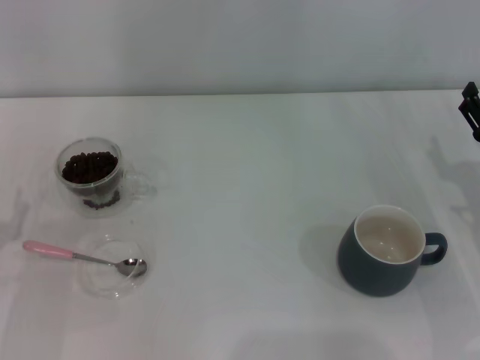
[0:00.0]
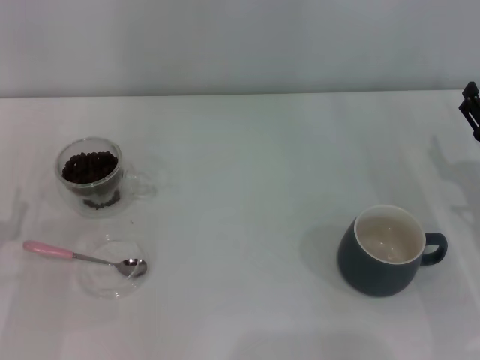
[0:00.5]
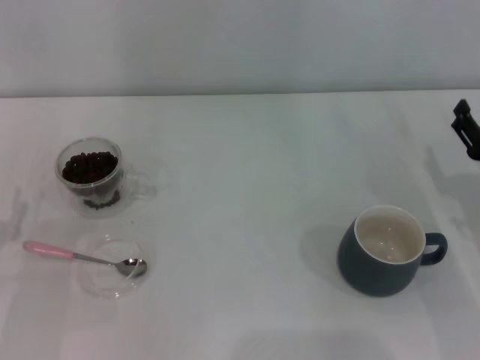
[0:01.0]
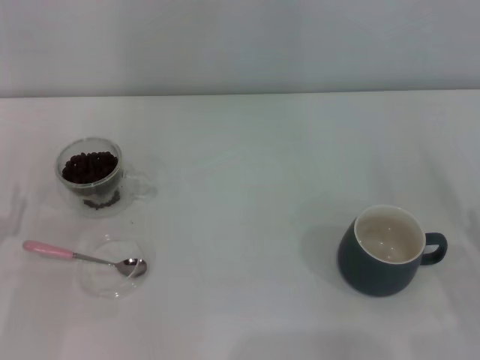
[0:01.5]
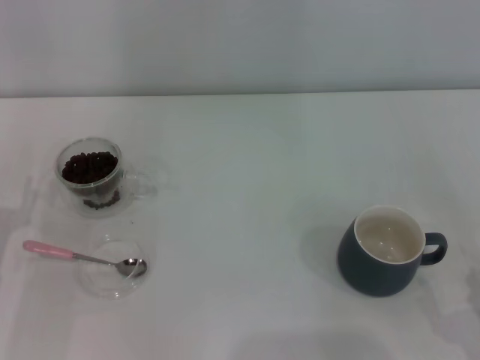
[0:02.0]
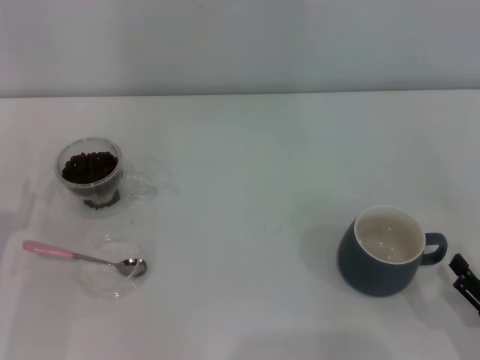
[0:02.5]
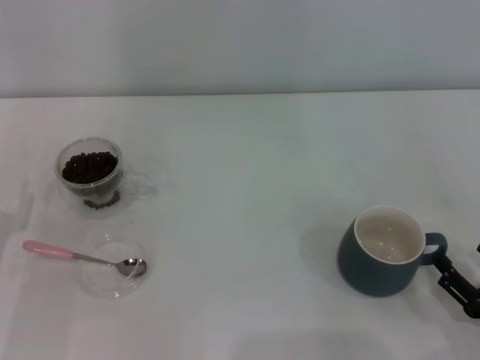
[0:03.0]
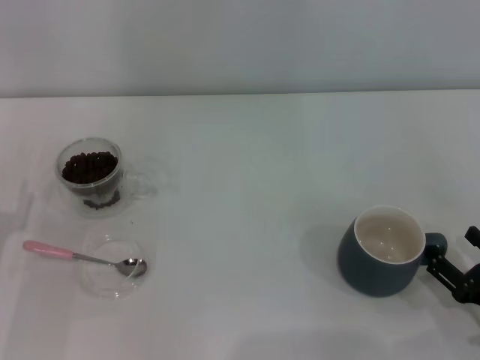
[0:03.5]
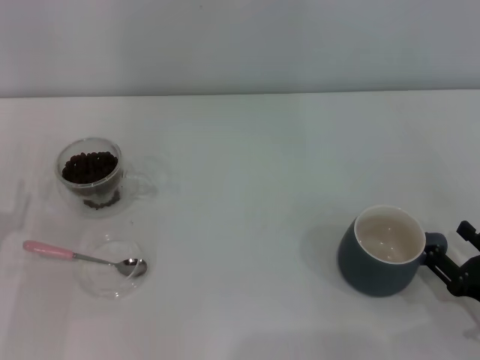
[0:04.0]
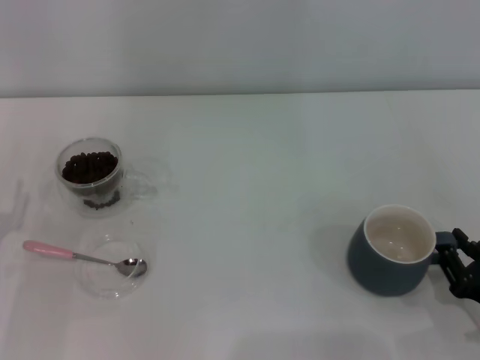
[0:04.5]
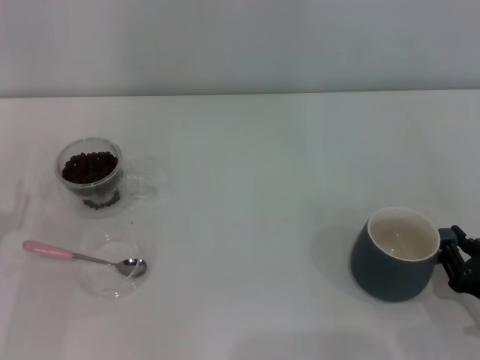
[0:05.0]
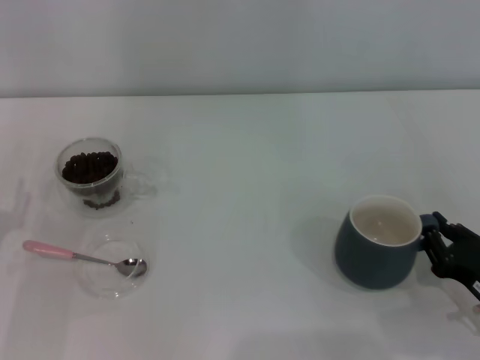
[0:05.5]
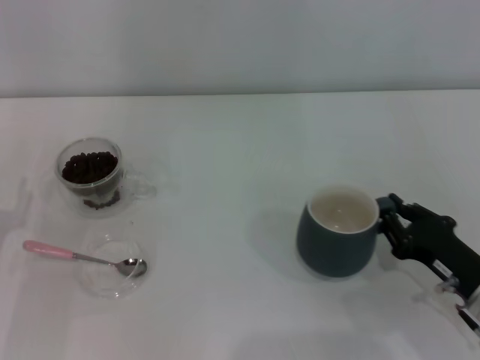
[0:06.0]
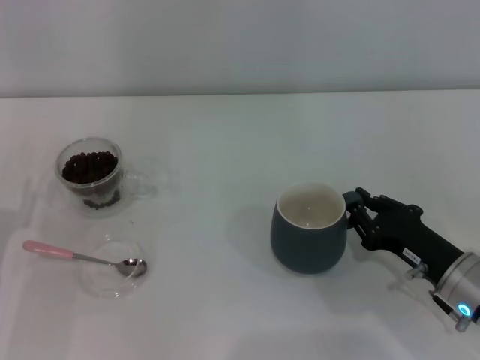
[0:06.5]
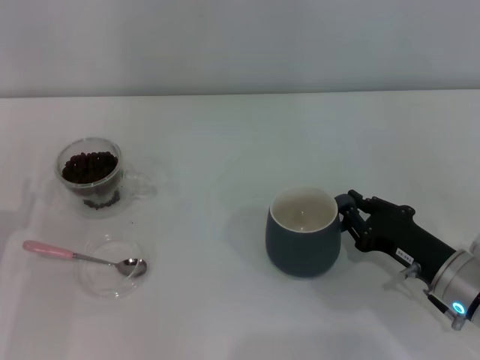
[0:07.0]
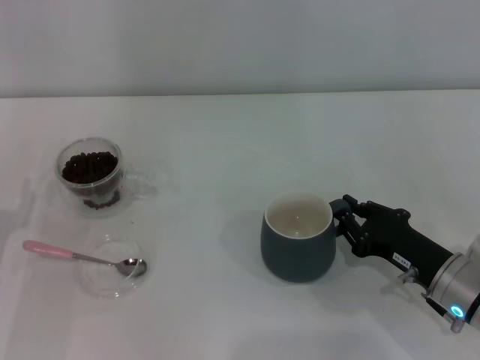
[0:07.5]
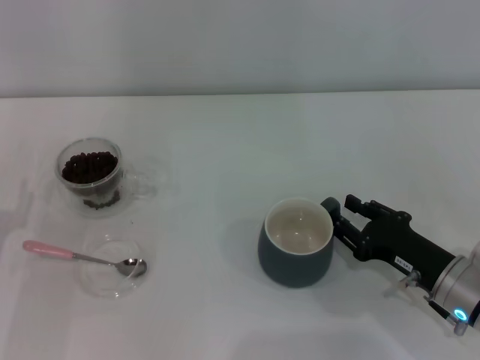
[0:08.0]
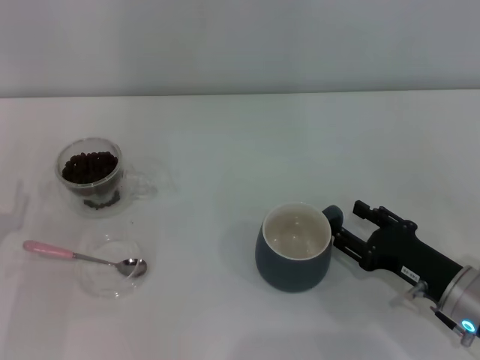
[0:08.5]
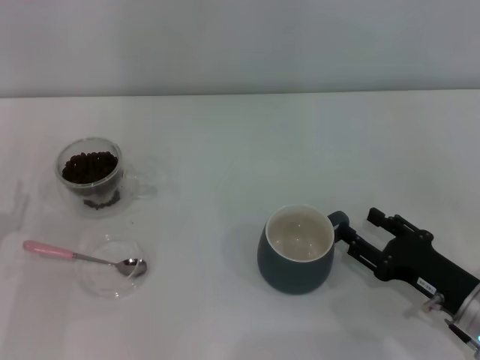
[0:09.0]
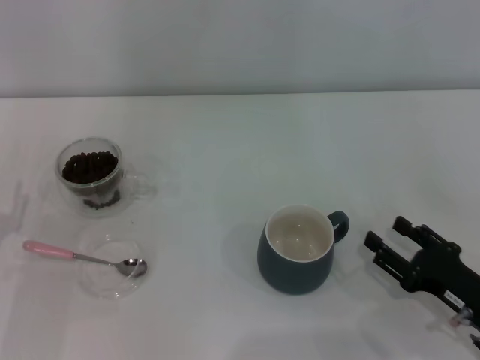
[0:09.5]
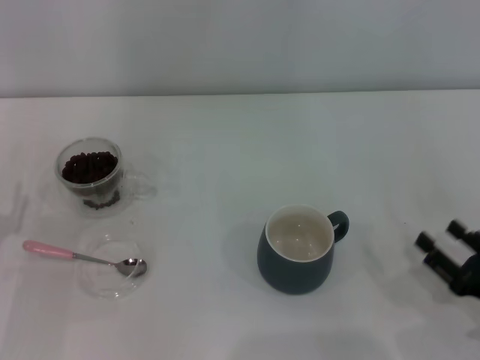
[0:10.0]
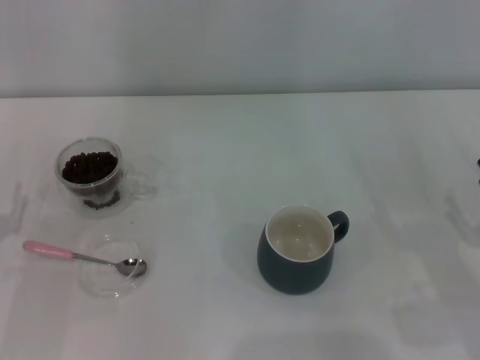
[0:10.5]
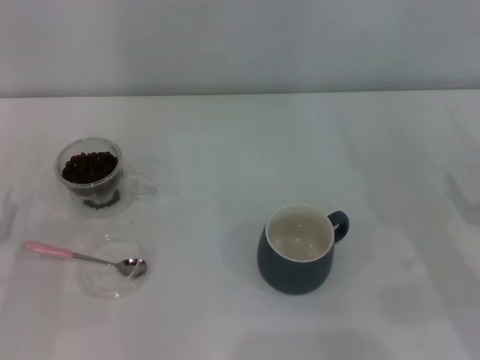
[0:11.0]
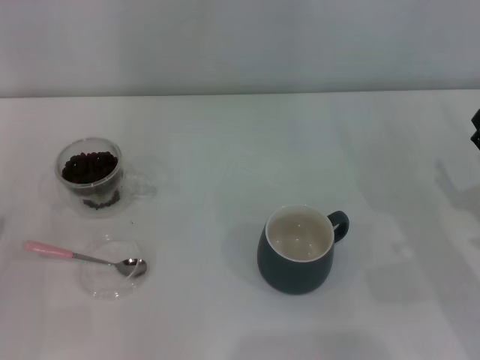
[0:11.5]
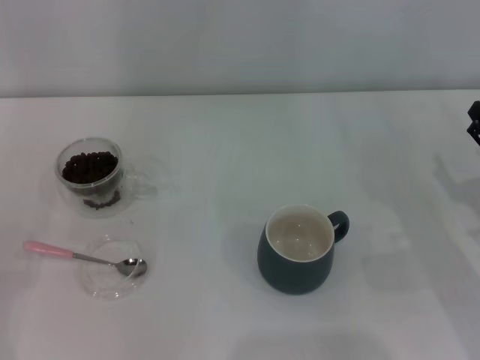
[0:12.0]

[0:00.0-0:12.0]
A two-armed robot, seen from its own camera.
Task of the whole recording: Use a pink spoon to take out the coffee beans from the glass and pour them into the gray cup.
0:00.0 to 0:02.0: The right gripper shifts approximately 20 cm backward.
0:02.0 to 0:04.0: The right gripper moves forward, roughly 5 cm.
0:04.0 to 0:06.0: The right gripper is displaced forward by some 5 cm, and closes.
0:06.0 to 0:08.0: The grippers move only a little.
0:08.0 to 0:10.0: The right gripper moves backward and to the right, roughly 10 cm, and opens up.
0:10.0 to 0:12.0: The right gripper shifts approximately 10 cm forward.

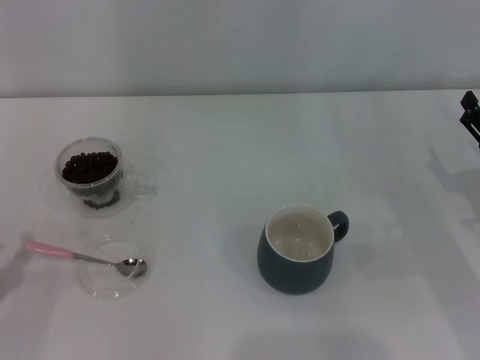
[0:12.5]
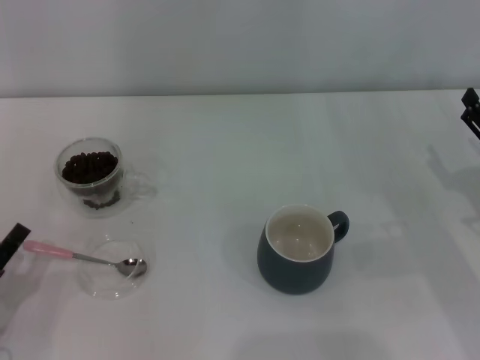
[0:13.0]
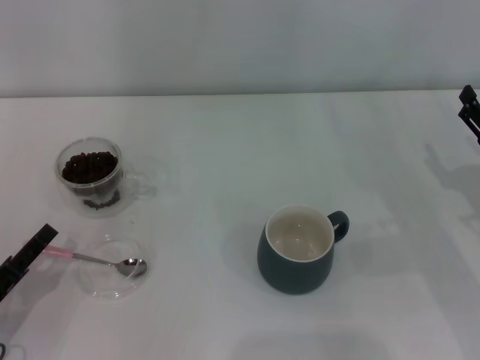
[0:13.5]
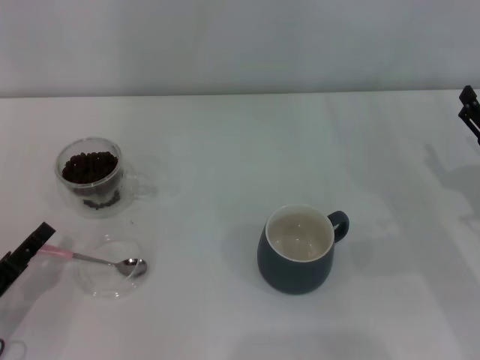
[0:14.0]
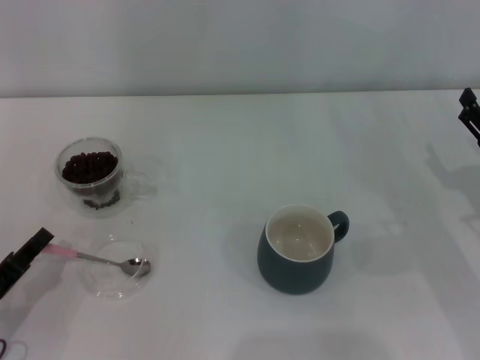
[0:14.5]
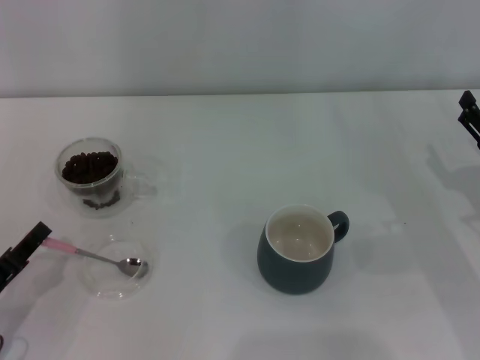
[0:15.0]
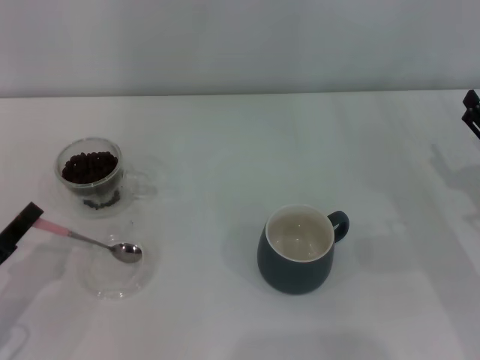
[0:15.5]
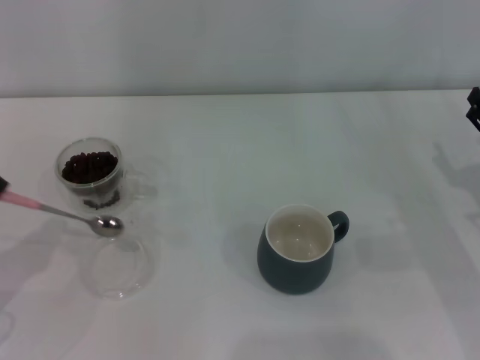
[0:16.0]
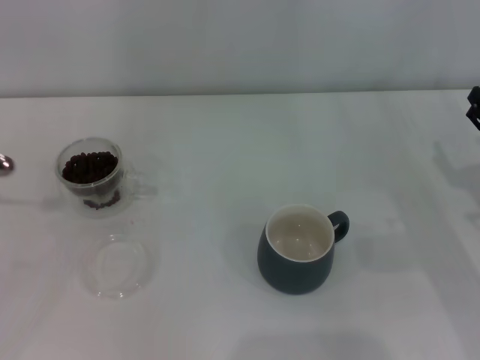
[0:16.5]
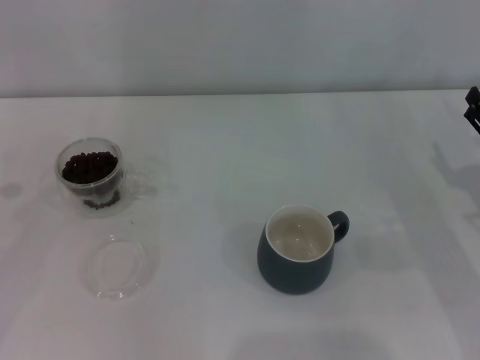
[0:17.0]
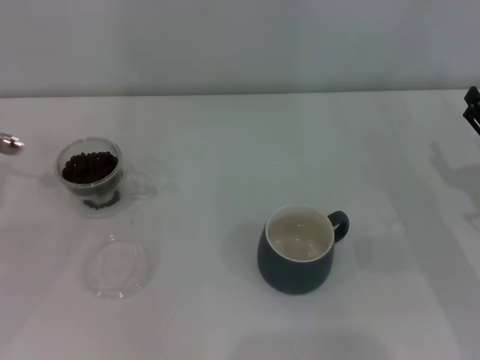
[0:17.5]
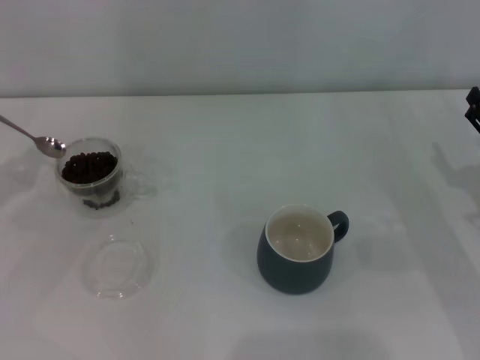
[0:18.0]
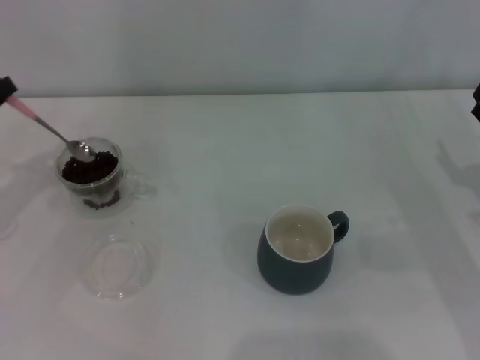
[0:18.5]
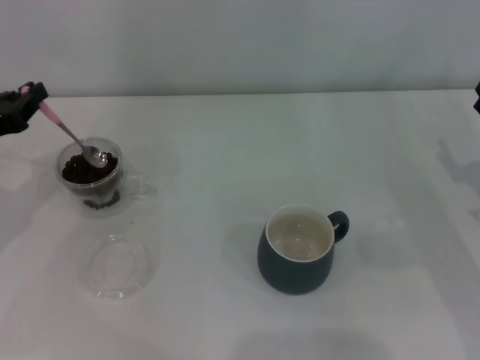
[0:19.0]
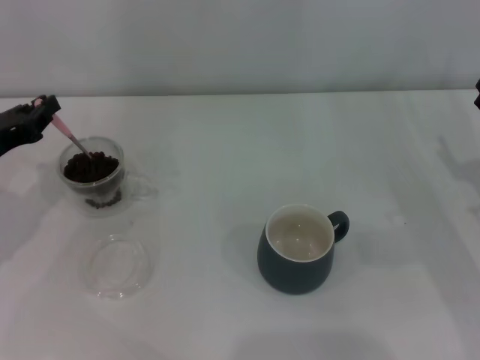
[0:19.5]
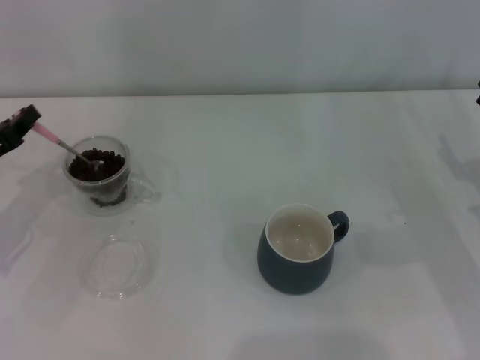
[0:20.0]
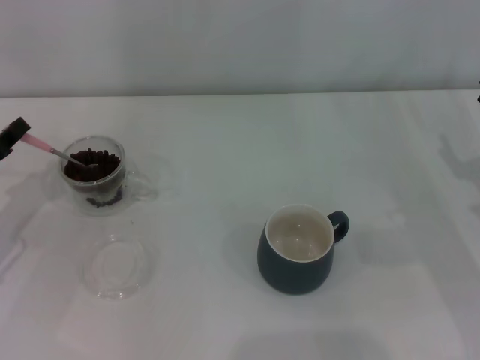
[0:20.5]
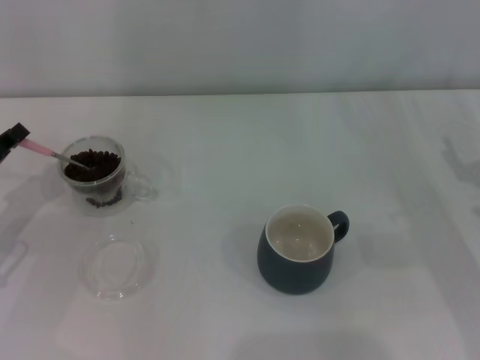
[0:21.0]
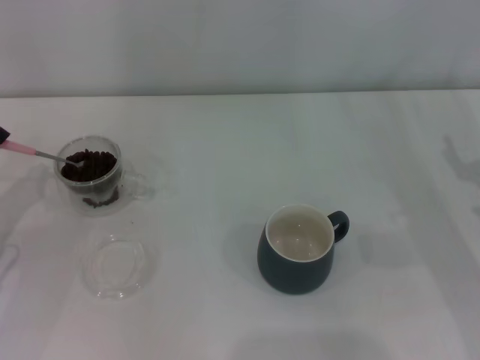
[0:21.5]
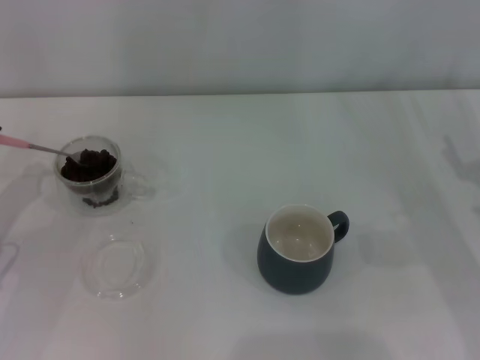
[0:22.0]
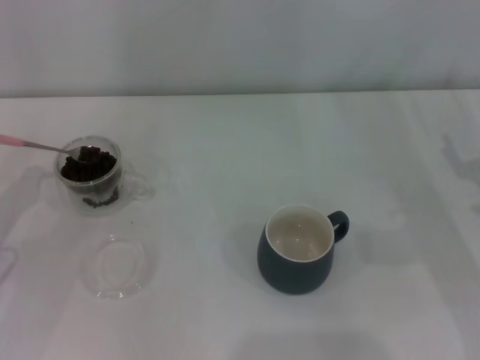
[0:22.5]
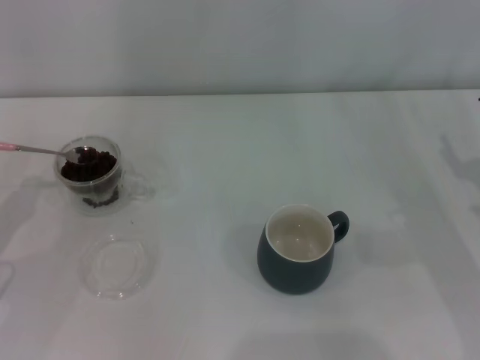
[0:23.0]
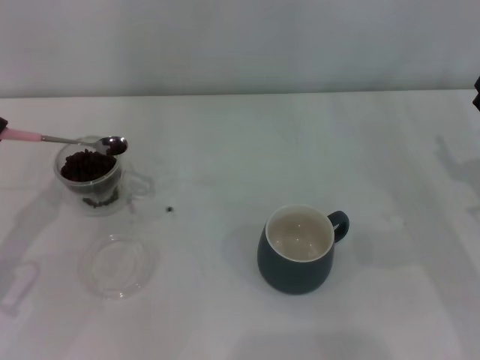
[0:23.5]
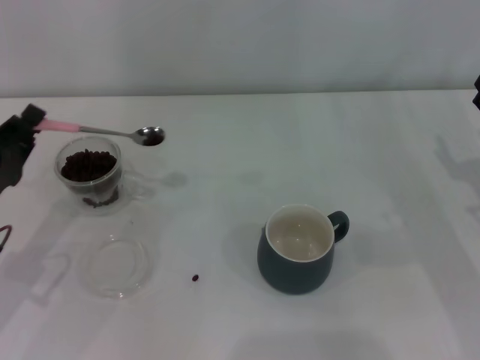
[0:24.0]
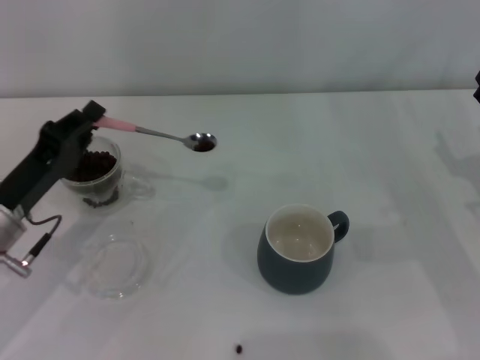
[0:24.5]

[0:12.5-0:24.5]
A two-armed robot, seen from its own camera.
Task of the whole recording: Use a pink spoon to take out the coffee beans from the glass and pour them into the gray cup.
Step, 0:12.5 to 0:15.5: Pick up the spoon with the right gripper.
0:12.5 to 0:14.5: The left gripper closes.
0:14.5 to 0:16.5: The left gripper heads upward and to the left, covering some 15 cm.
0:16.5 to 0:18.5: The left gripper travels forward and to the right by roughly 15 cm.
0:18.5 to 0:20.5: The left gripper changes place by roughly 5 cm.
0:22.5 to 0:24.5: The left gripper heads to the right, covering roughly 10 cm.

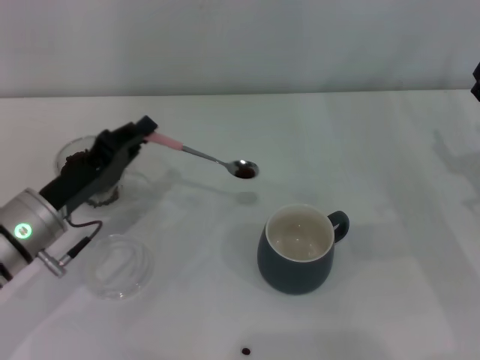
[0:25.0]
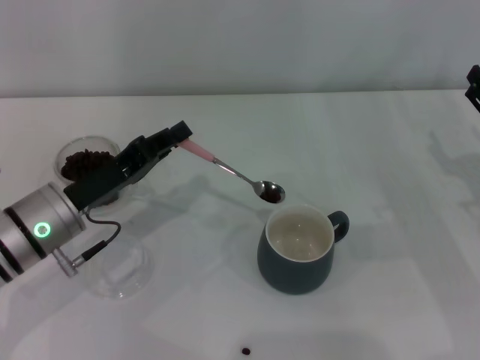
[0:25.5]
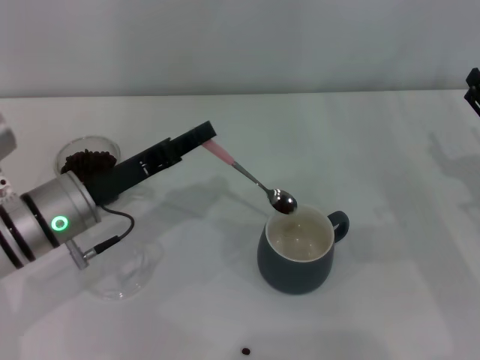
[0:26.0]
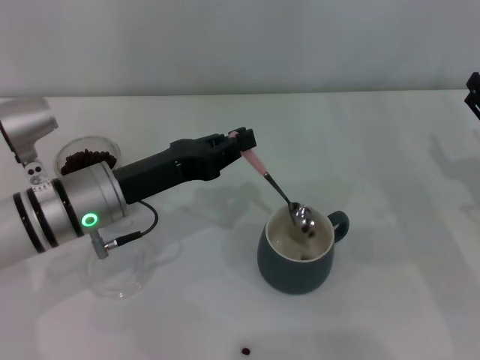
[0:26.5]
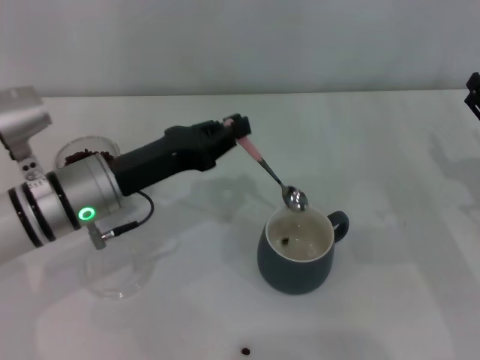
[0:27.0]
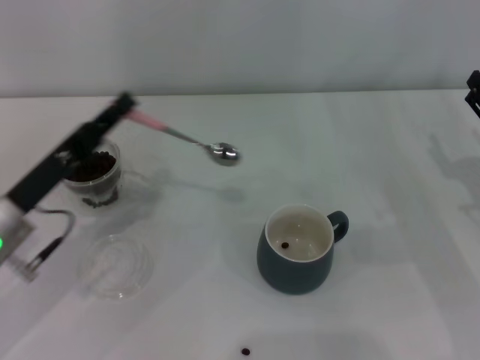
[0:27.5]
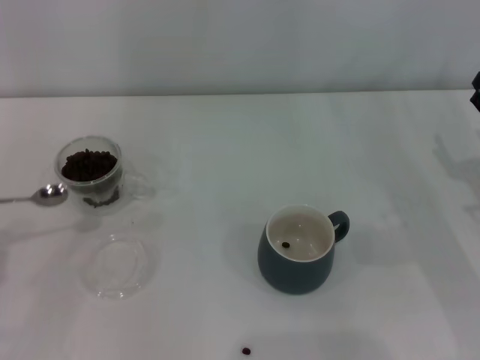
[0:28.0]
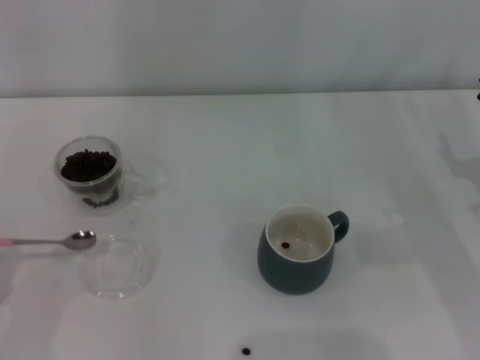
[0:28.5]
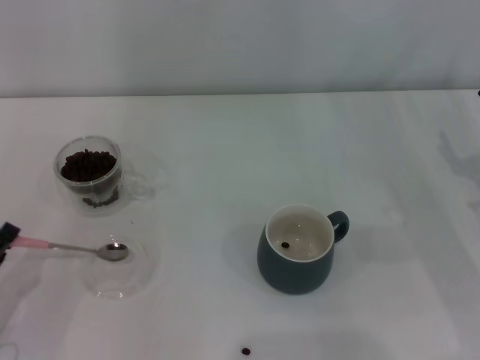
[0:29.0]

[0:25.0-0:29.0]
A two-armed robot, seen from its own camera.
Task of the whole recording: Use a pink spoon to take out the coffee beans from the glass and pour them into the gray cup.
0:25.0 to 0:27.0: The left gripper moves to the right, about 5 cm.
0:27.0 to 0:29.0: The left gripper heads to the left, backward and downward, covering approximately 25 cm.
